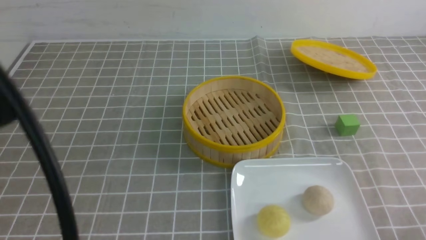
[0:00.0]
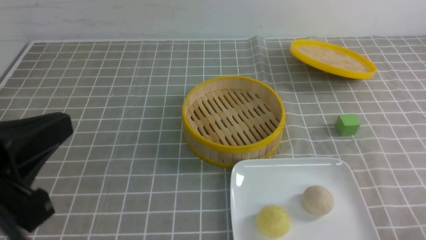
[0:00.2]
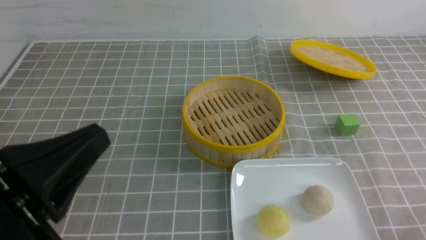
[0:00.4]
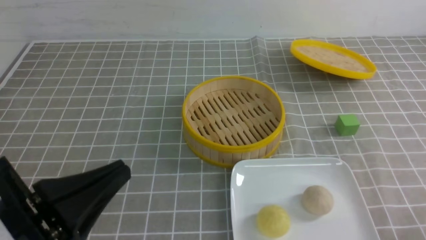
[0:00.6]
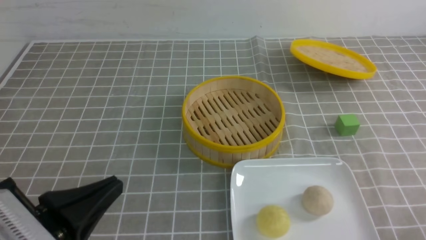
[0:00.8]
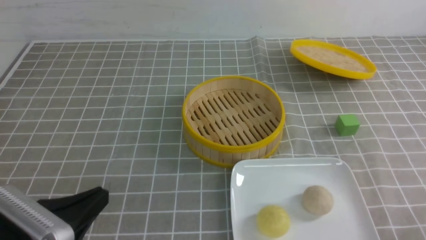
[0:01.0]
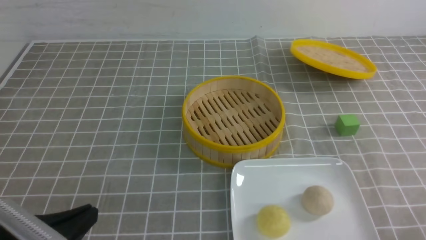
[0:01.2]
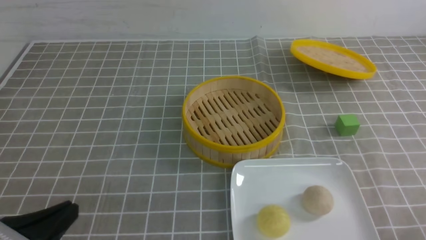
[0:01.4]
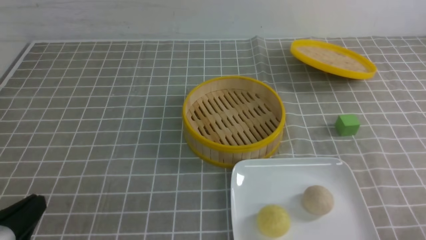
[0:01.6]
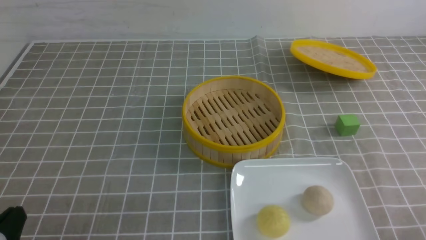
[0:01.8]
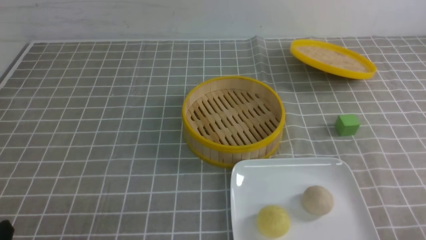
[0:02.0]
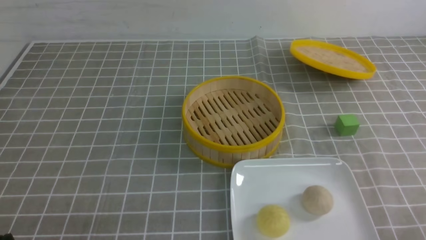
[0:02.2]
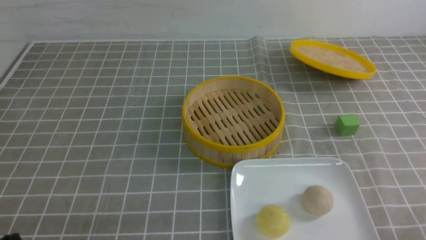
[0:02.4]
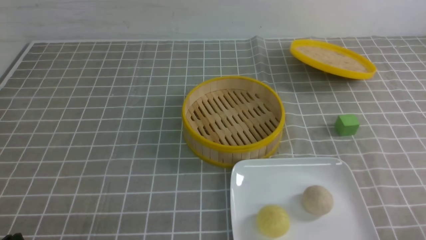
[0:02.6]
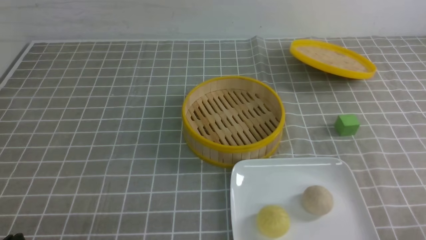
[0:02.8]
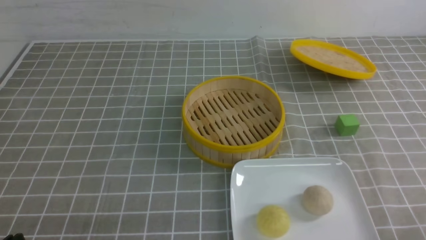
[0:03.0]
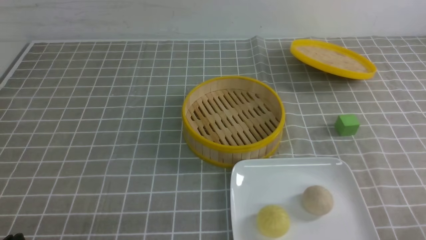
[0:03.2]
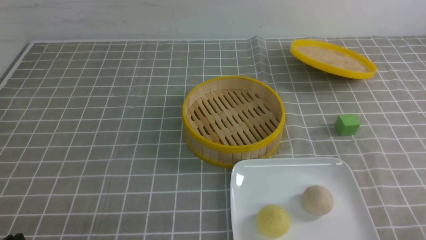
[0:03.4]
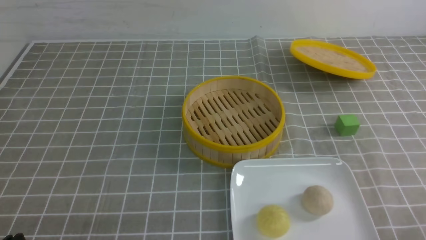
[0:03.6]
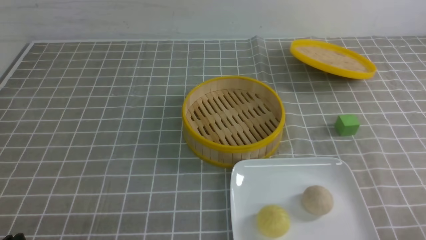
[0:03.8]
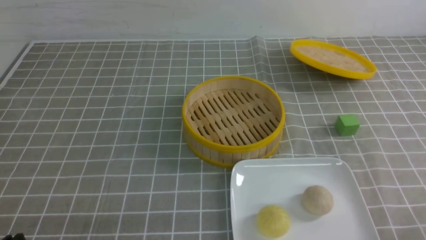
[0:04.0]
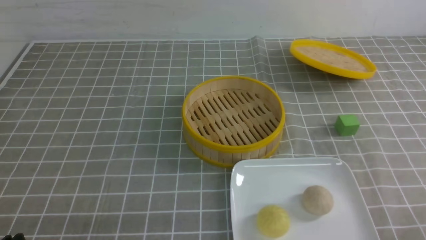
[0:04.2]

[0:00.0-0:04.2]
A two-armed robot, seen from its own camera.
0:00.0 to 0:01.4: The left gripper is displaced downward by some 20 cm.
0:01.4 to 0:02.8: The left gripper travels downward by some 5 cm.
0:02.8 to 0:04.2: Both grippers stay about where they are.
